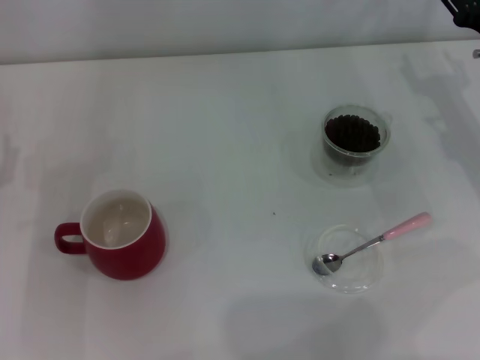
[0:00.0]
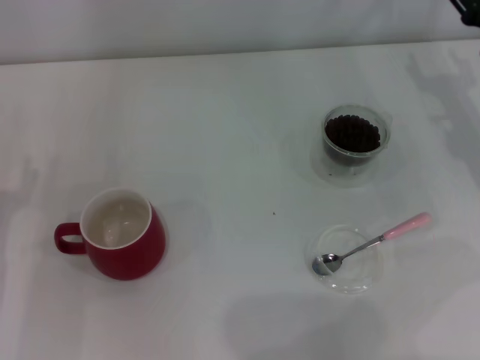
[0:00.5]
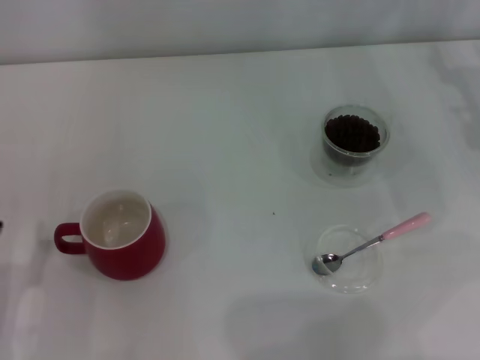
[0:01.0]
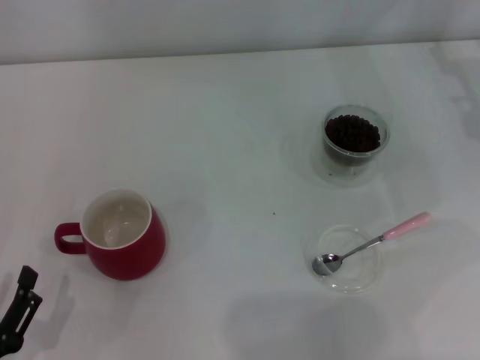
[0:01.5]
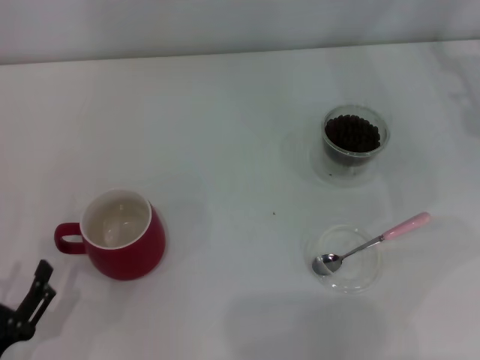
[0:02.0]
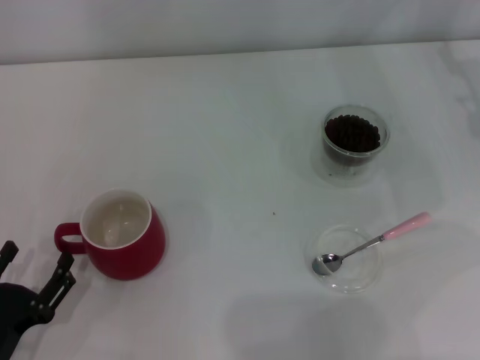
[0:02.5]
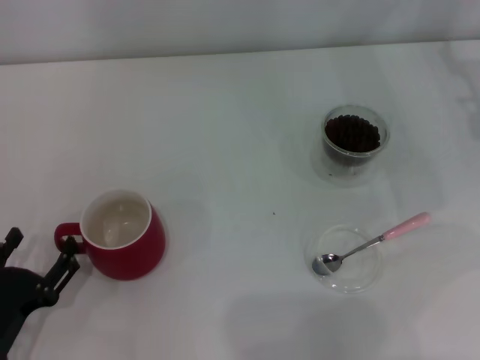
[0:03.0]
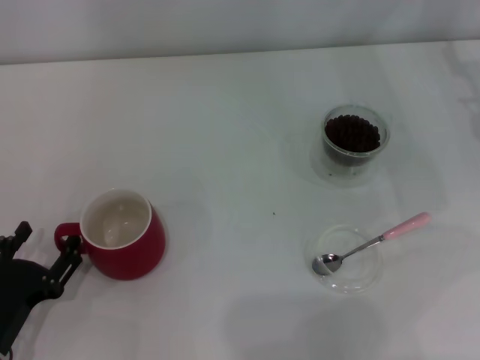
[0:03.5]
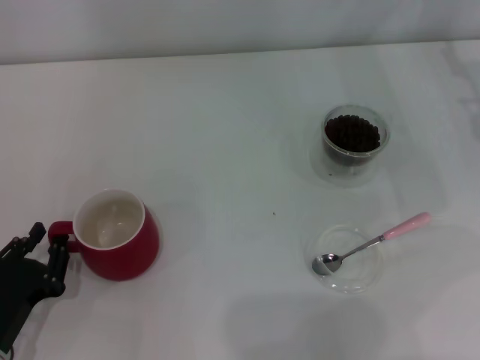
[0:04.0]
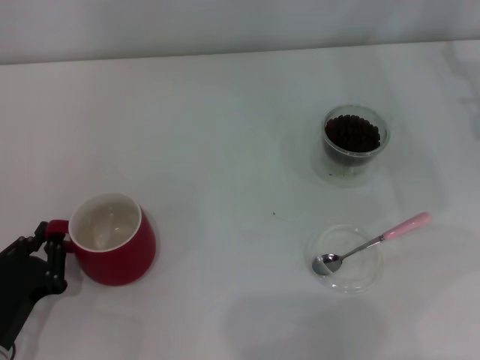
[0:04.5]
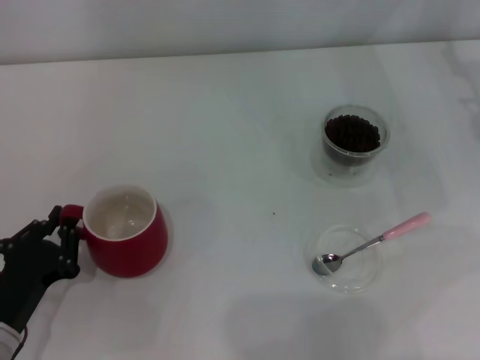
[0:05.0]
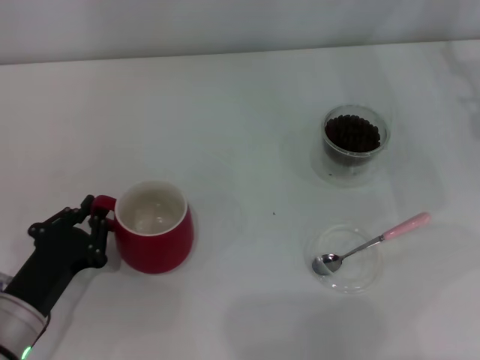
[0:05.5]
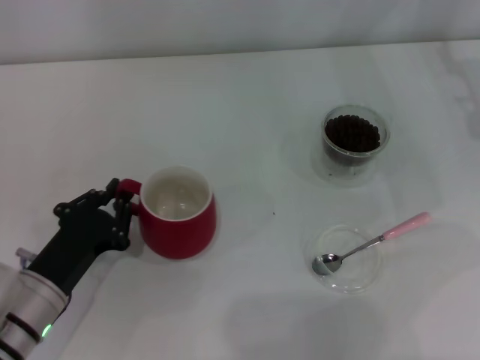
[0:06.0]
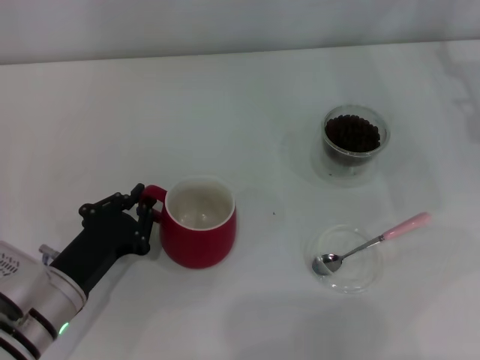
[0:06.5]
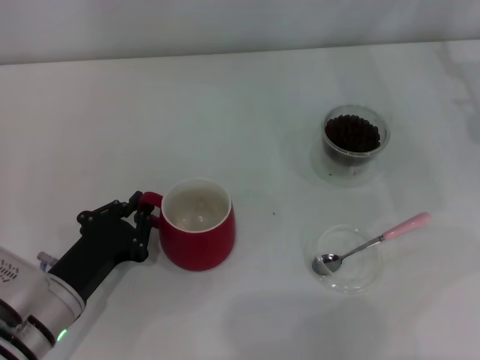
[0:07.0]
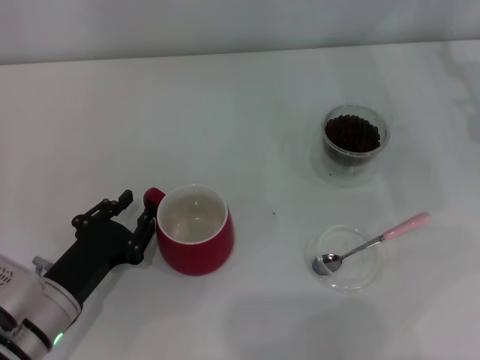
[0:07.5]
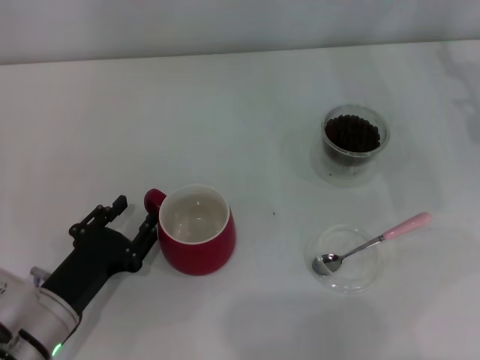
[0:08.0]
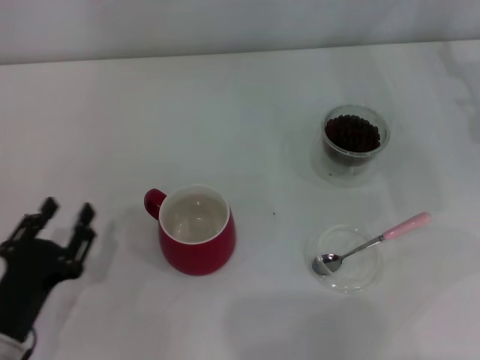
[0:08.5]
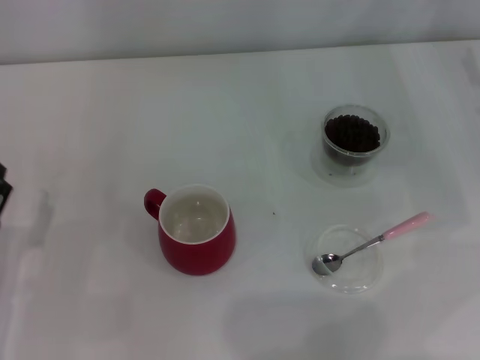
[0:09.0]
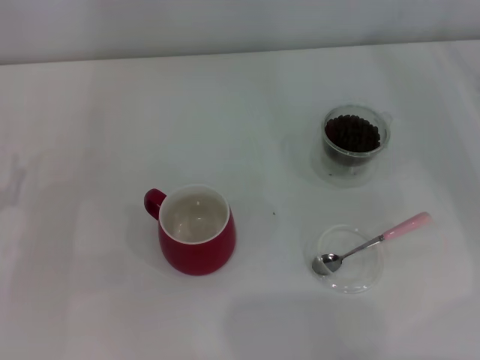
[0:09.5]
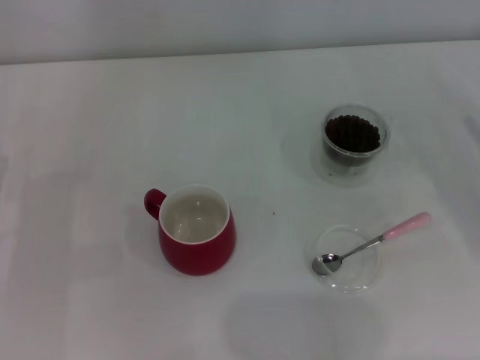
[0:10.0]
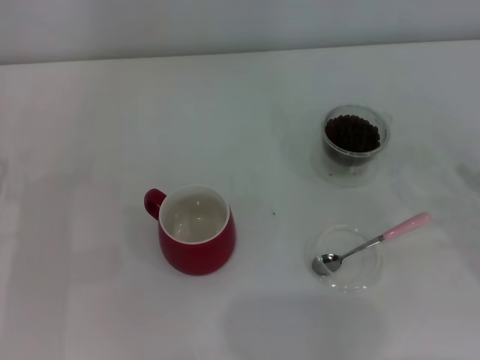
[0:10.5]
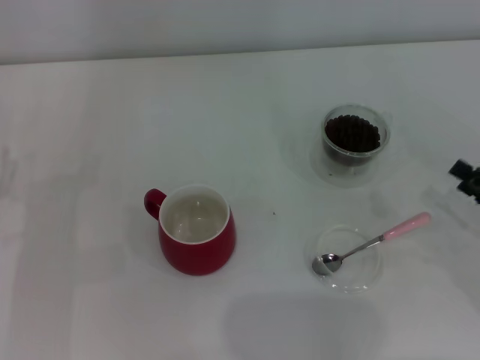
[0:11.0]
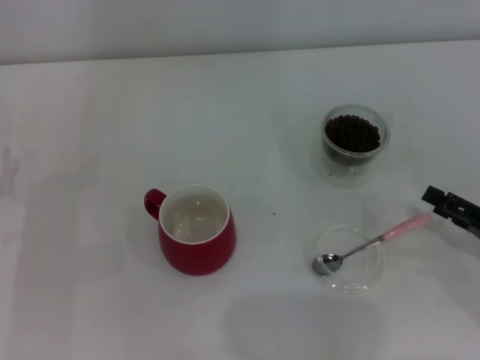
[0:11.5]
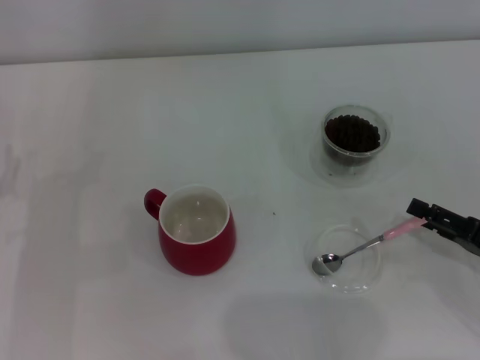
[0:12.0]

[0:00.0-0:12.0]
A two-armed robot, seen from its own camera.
Task of the whole recording: Use a pink spoon to take out the coffee beans from the glass and pour them into the red cup.
Step, 0:00.0 to 0:08.0: Move the cup to the center of view with the left gripper.
0:00.0 to 0:02.0: The left gripper shifts approximately 15 cm backward.
0:02.0 to 0:04.0: The left gripper moves forward, some 5 cm, and closes up.
0:04.0 to 0:06.0: The left gripper shifts about 5 cm forward, and closes its fingers.
0:06.0 to 0:08.0: The left gripper opens its fingers.
0:08.0 to 0:10.0: The left gripper heads to the left and forward, covering about 10 cm, and opens; the right gripper is displaced backward and downward by approximately 15 cm.
0:10.0 to 0:12.0: The right gripper shifts about 5 cm backward.

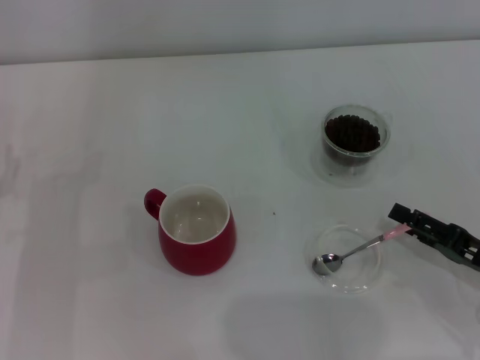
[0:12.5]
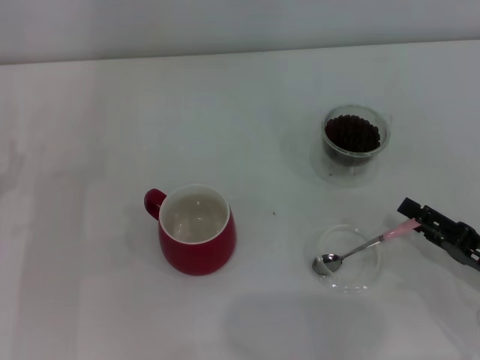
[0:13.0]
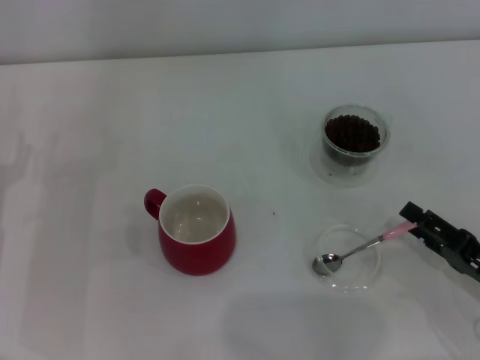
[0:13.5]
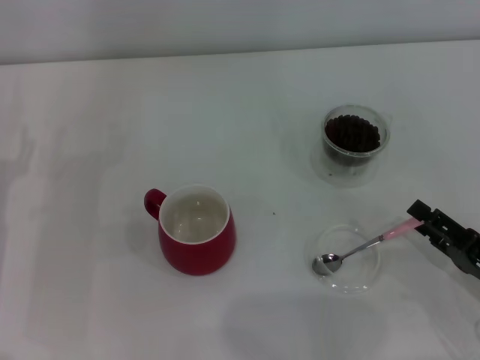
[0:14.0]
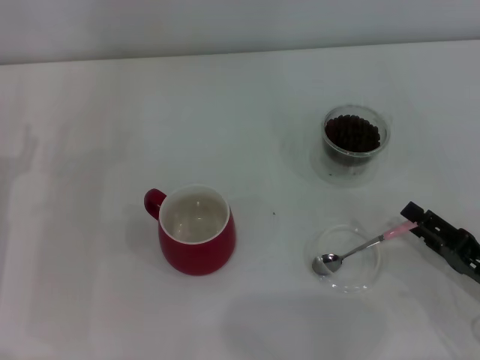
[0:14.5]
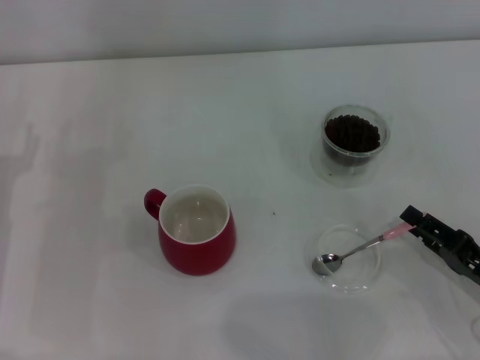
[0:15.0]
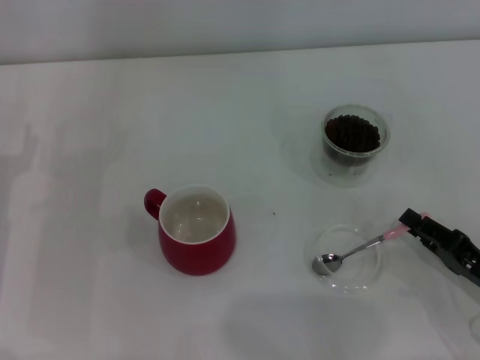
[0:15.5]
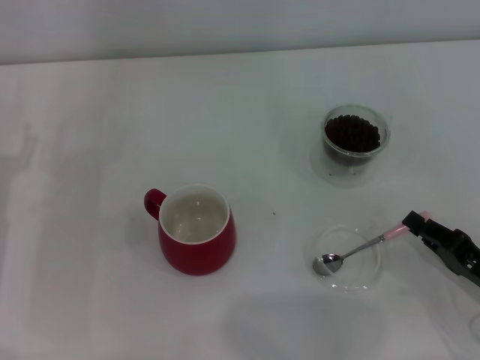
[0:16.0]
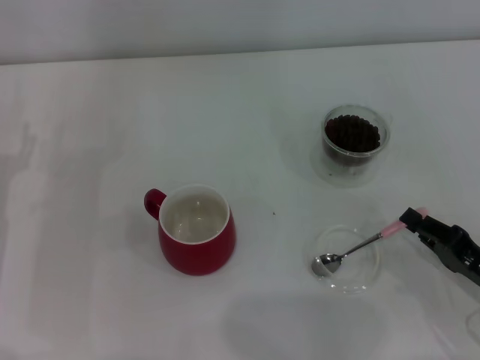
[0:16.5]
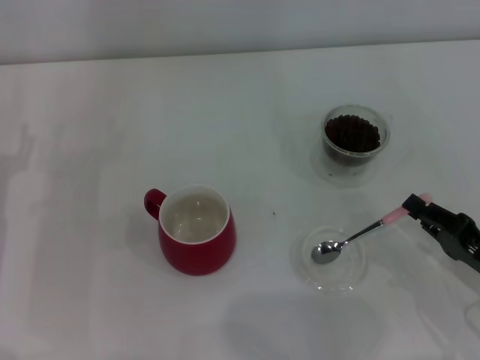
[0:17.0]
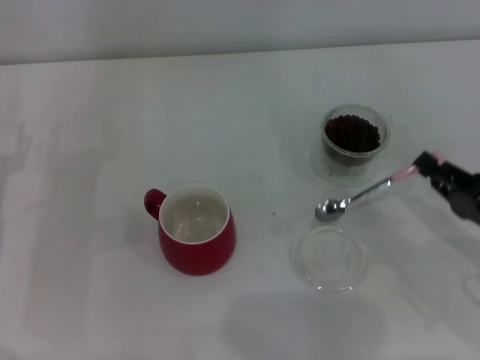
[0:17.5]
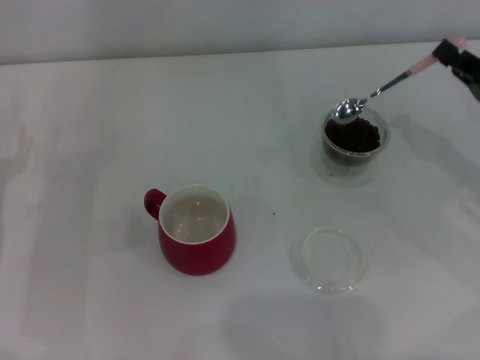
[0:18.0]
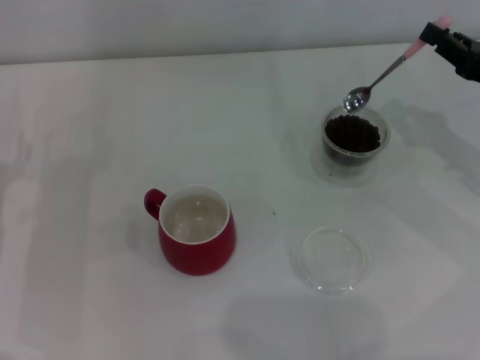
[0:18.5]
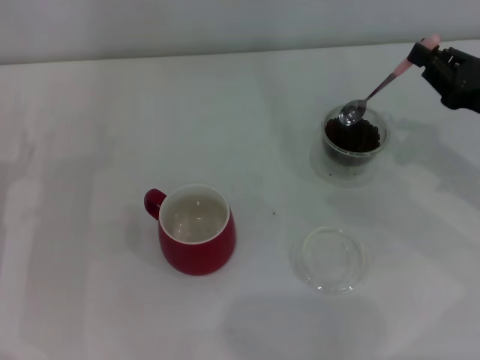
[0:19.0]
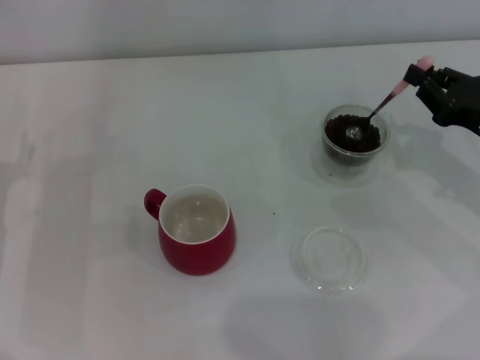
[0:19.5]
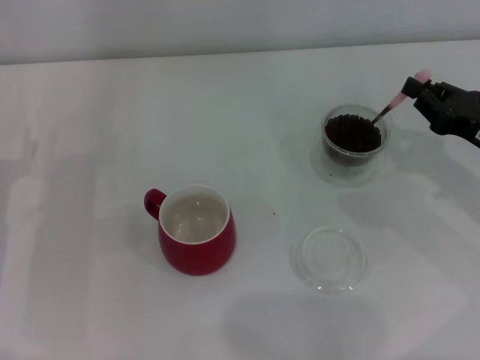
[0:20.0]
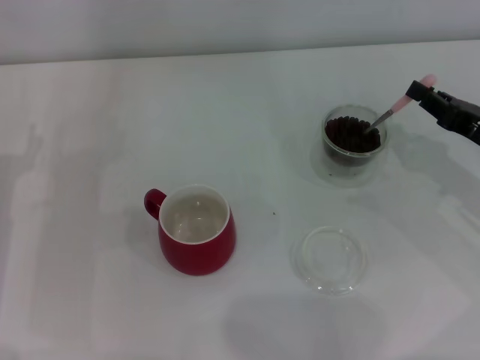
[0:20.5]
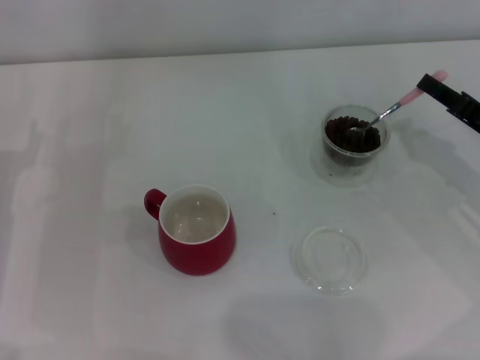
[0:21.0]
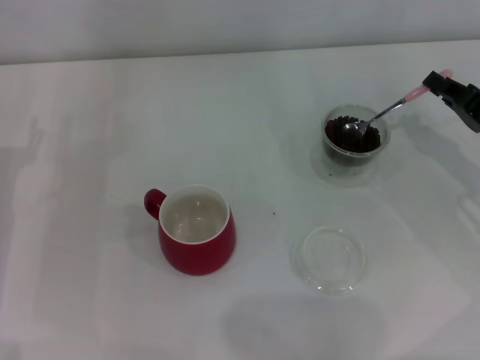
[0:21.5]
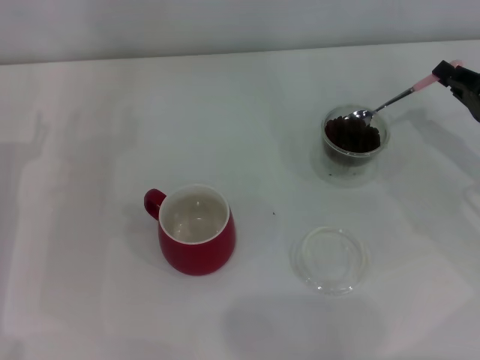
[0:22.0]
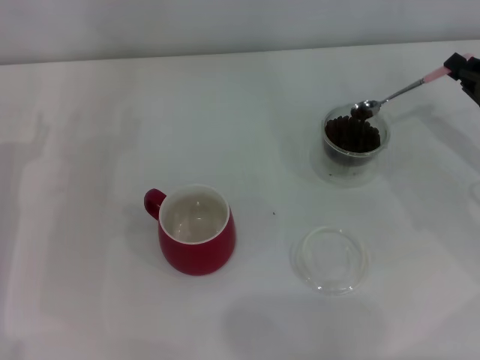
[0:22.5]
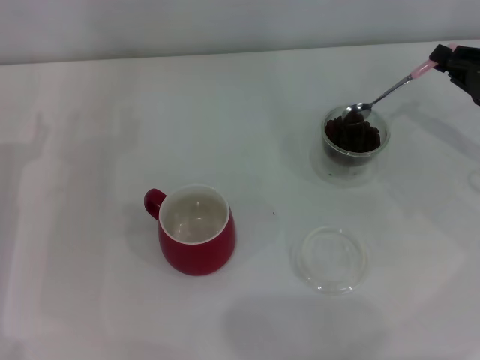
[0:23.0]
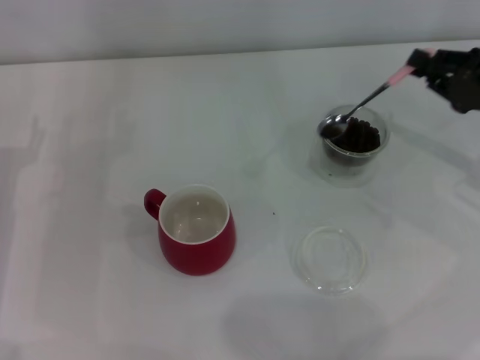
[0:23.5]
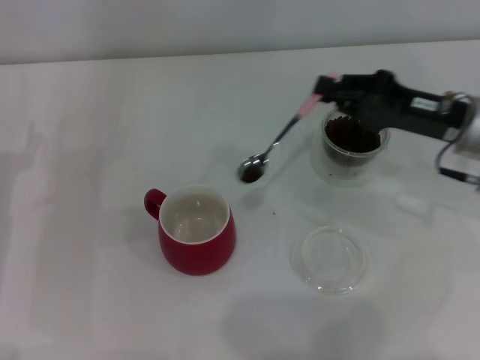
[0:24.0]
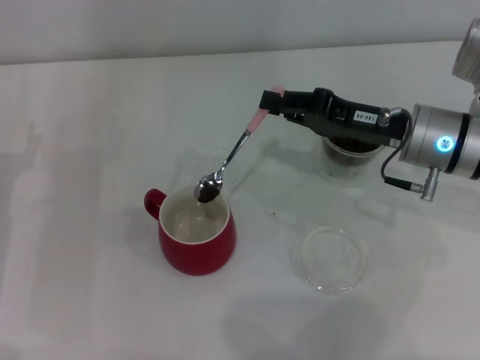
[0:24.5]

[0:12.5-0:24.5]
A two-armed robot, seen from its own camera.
Task of the whole recording: Use a pink spoon to take out the coffee beans from the glass and pour them into the red cup.
Step, 0:12.5 to 0:17.0: Pick up the spoon with the right gripper.
0:12.5 to 0:14.5: The grippers stay close to where they were, moving slightly.
0:14.5 to 0:16.5: The right gripper closes up.
0:16.5 to 0:18.5: The right gripper travels forward and upward by roughly 20 cm.
0:18.5 to 0:20.5: The right gripper ends up some 5 cm from where it was.
0:22.5 to 0:24.5: The right gripper is displaced to the left by approximately 15 cm.

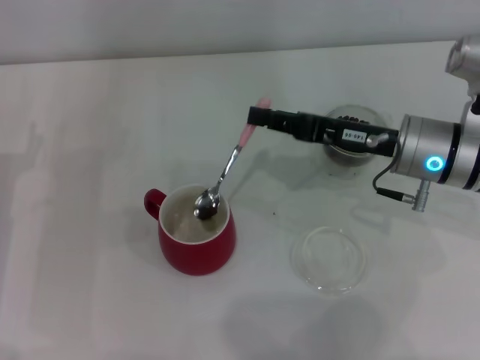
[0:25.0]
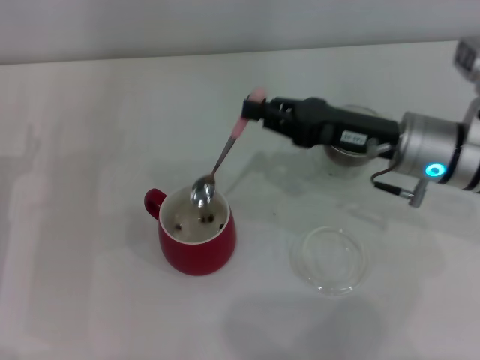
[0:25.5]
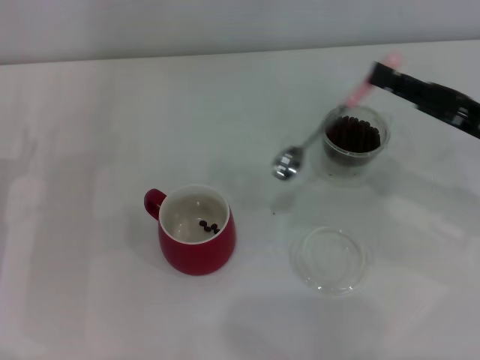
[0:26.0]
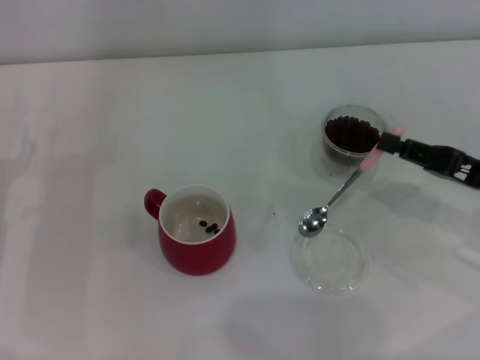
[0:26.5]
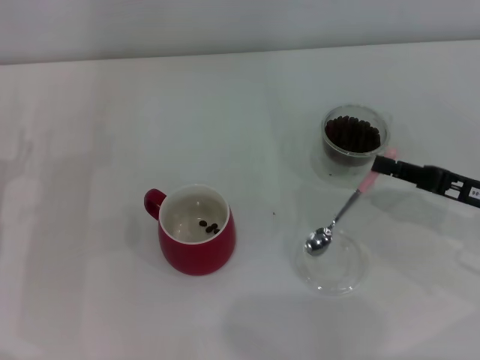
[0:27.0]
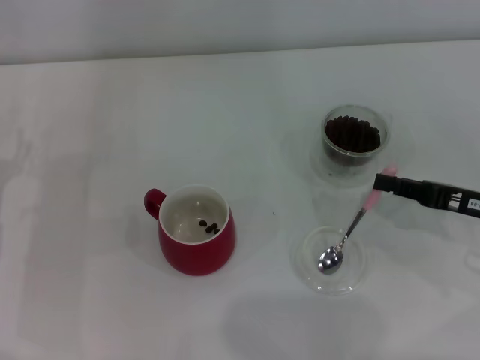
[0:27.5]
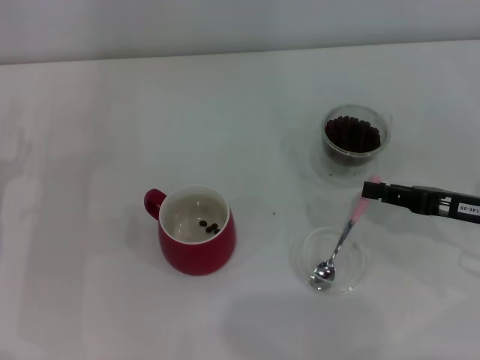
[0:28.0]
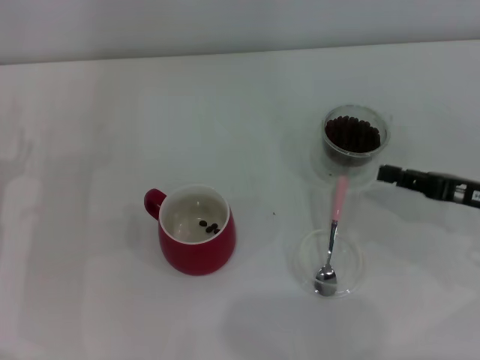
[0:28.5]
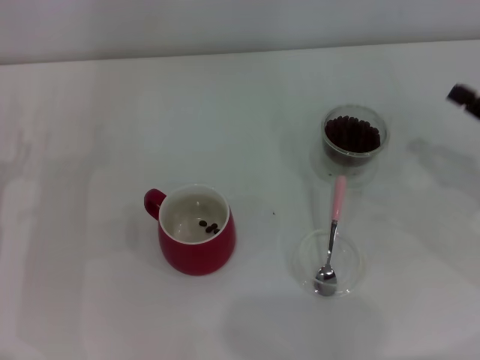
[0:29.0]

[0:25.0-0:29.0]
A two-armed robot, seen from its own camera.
Task of the whole recording: Use a pink spoon to take out the coffee beans from the glass and pour them into the red cup.
Step, 0:26.0 to 0:28.0: Place the spoon back in its original place with the right gripper.
0:25.0 to 0:27.0: The right gripper moves to the right and backward, roughly 15 cm.
